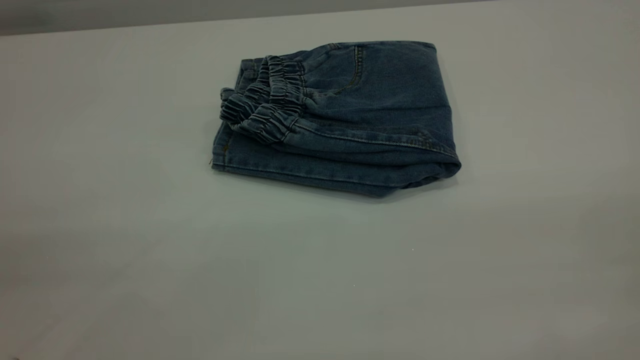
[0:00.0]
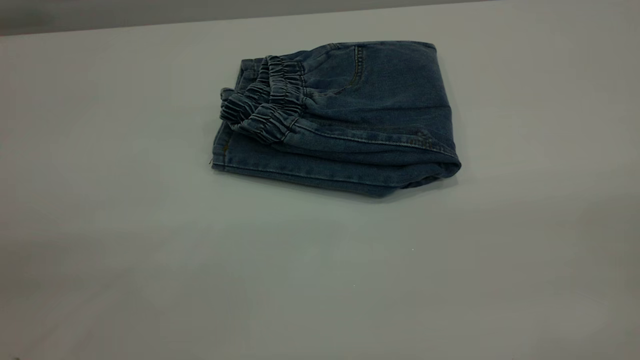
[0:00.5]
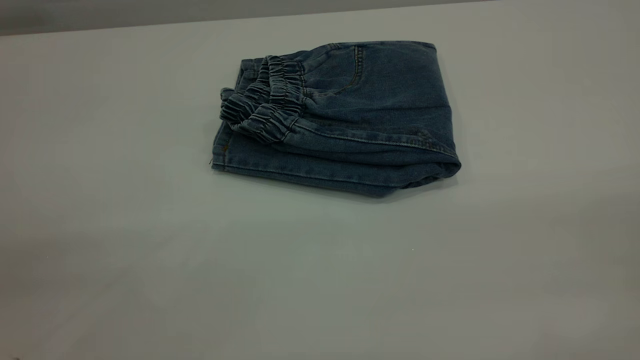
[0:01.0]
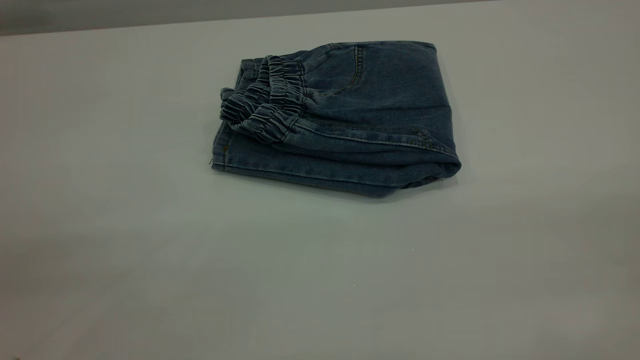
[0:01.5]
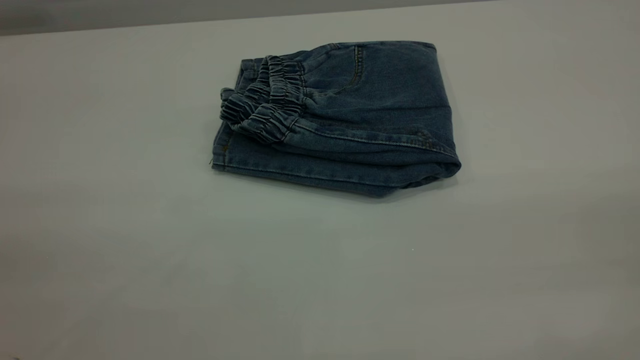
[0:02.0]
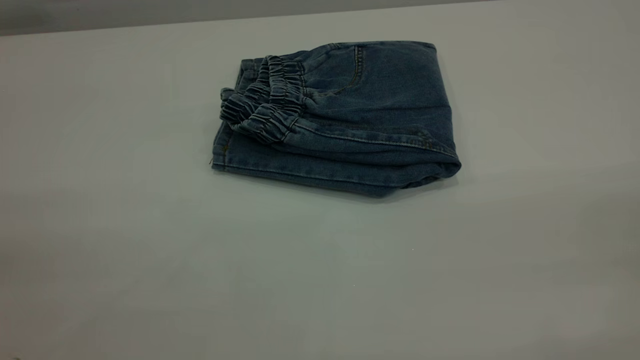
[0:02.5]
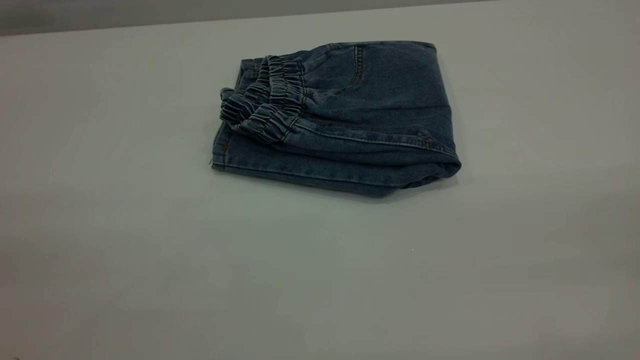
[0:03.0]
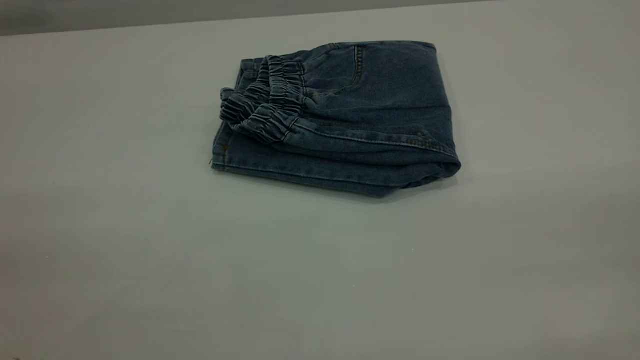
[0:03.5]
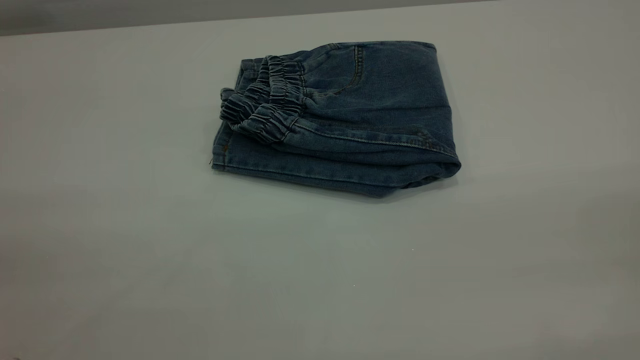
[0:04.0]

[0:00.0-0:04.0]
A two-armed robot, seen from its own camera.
0:02.0 to 0:04.0: Both grippers stay put.

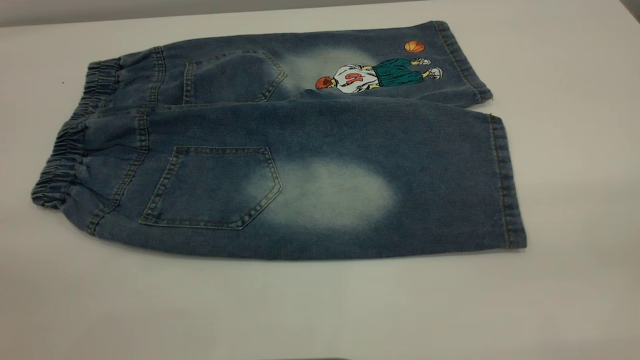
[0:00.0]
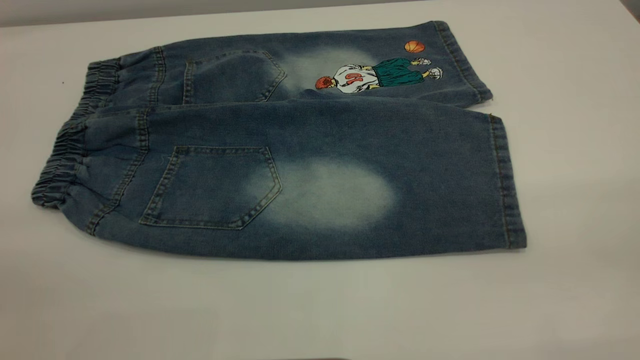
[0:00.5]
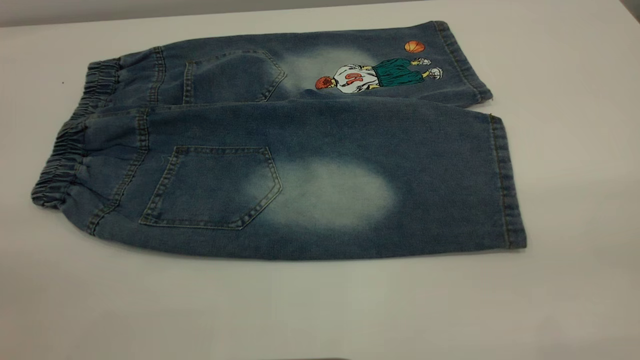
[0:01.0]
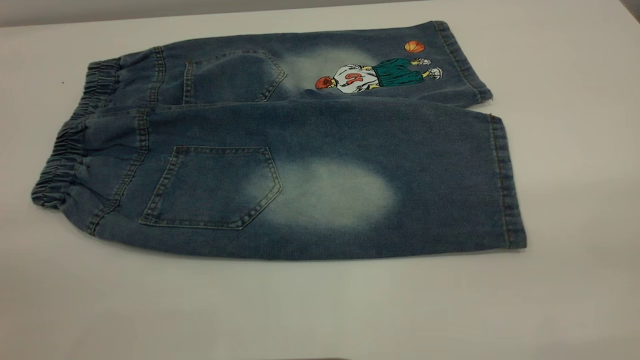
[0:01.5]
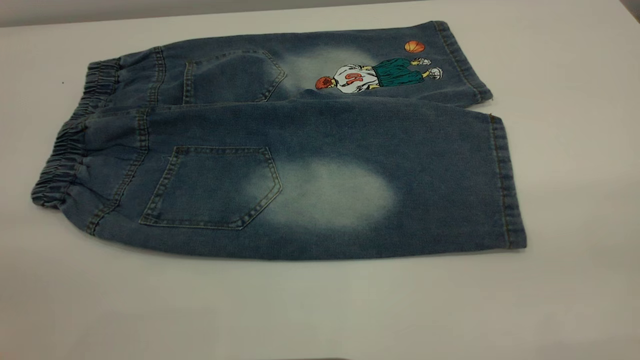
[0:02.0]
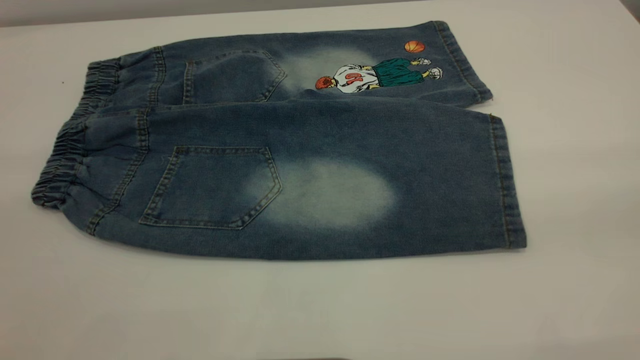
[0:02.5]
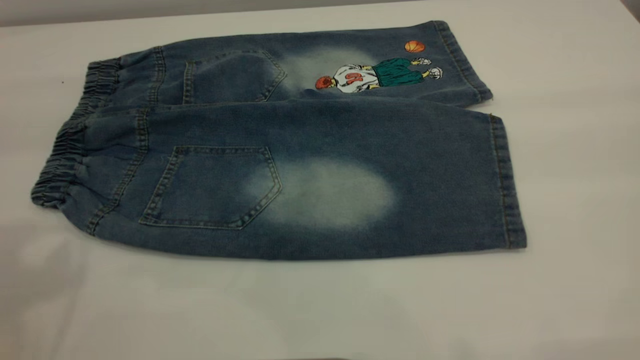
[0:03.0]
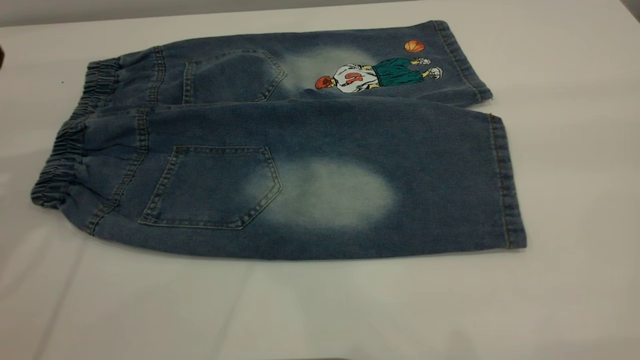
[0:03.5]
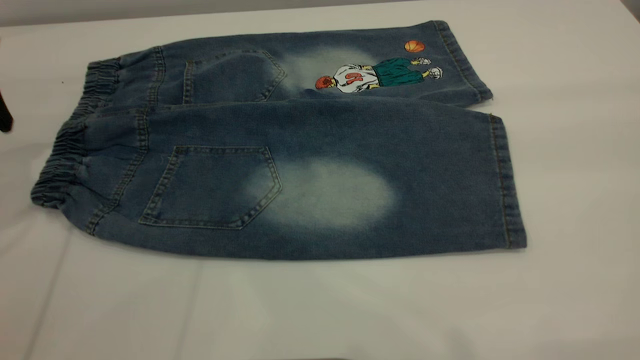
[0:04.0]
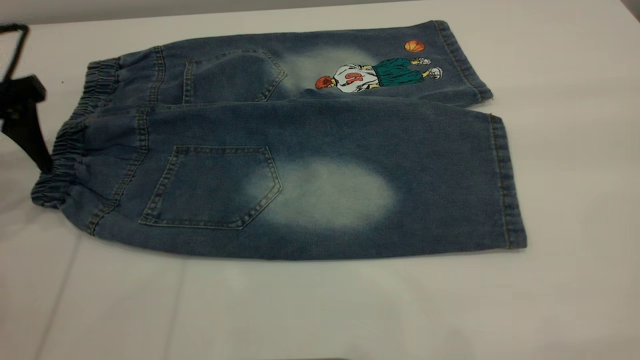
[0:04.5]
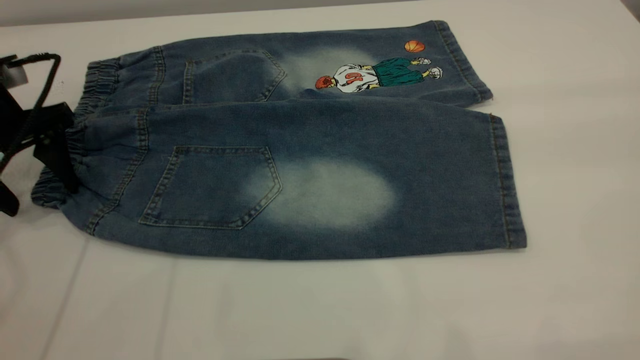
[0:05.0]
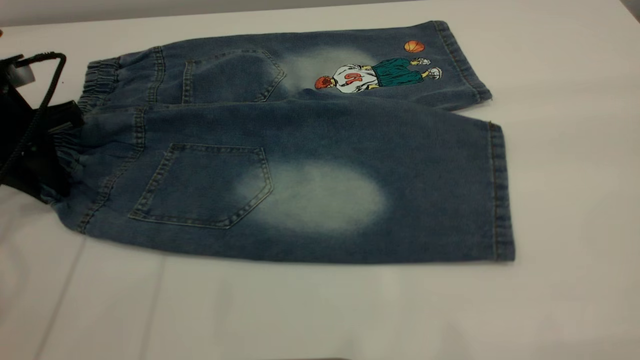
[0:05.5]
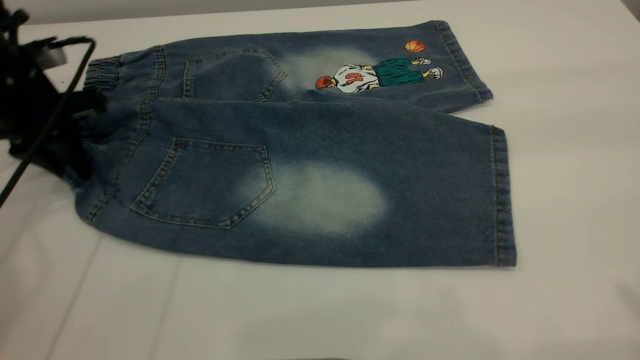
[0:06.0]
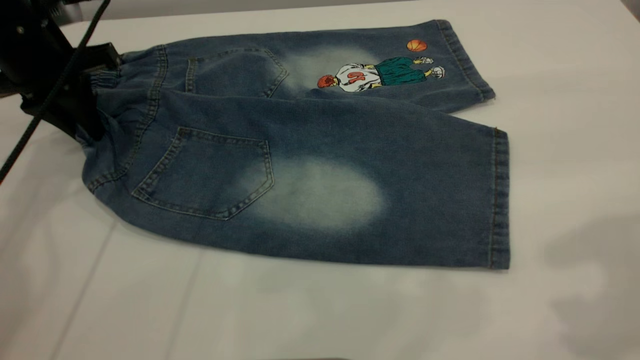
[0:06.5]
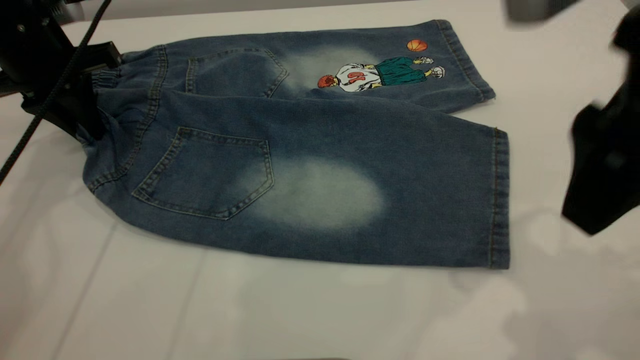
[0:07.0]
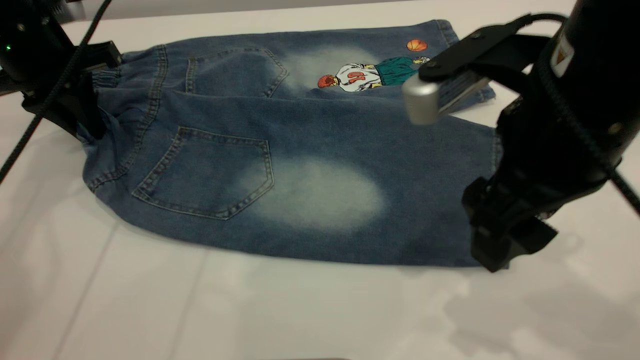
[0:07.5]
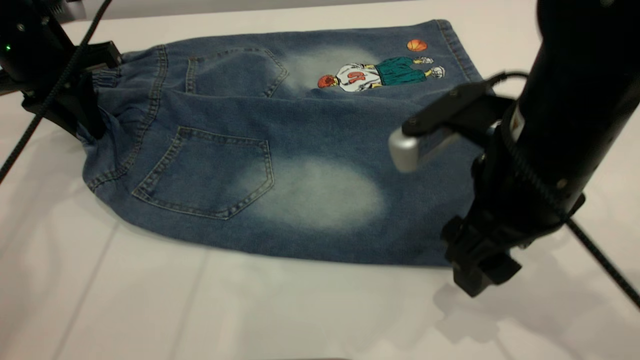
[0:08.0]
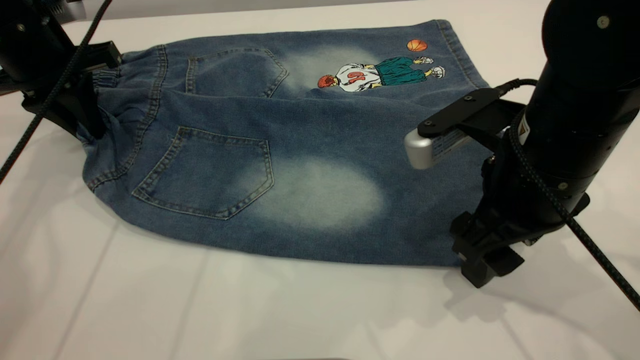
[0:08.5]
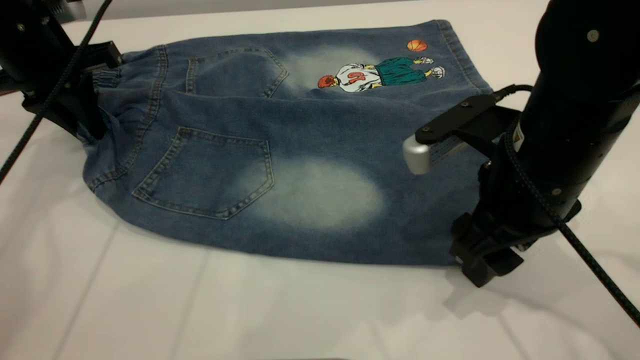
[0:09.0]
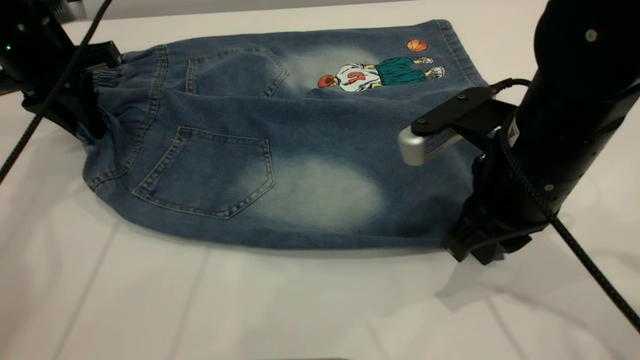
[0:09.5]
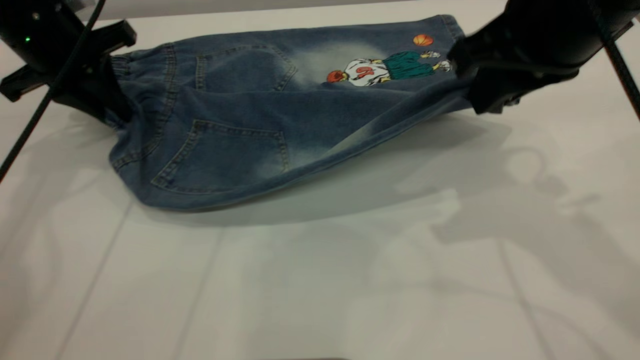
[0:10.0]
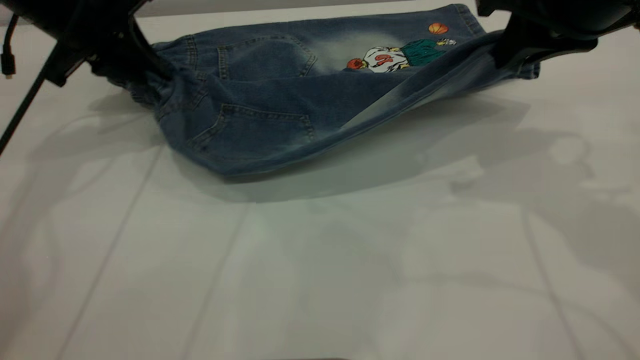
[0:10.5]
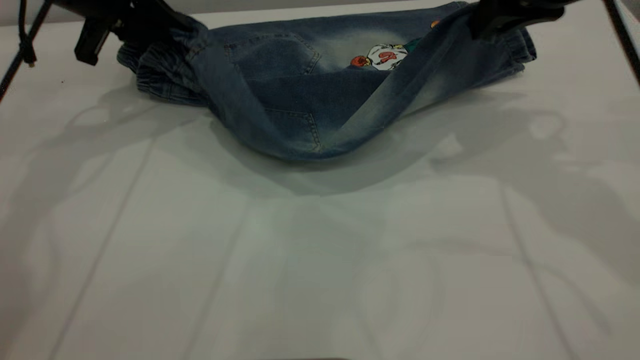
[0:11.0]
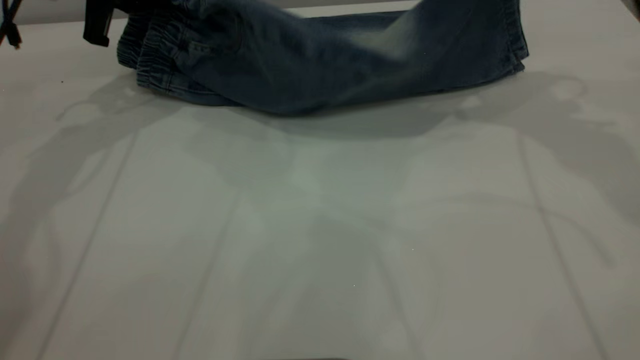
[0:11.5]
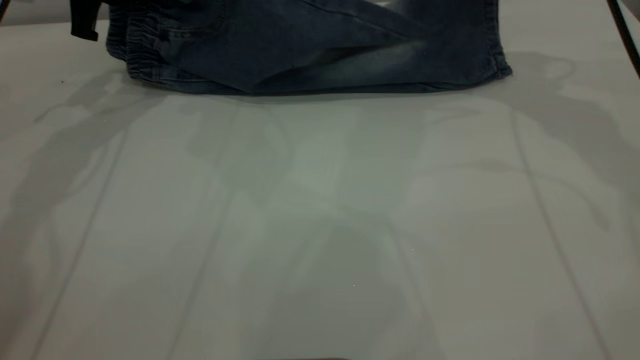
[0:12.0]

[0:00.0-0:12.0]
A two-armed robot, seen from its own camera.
0:00.0 to 0:02.0: The two grippers keep their place.
0:02.0 to 0:04.0: The left gripper travels forward by approximately 35 cm.
0:04.0 to 0:06.0: The right gripper moves forward, roughly 5 cm; the left gripper moves downward, roughly 10 cm, and closes up.
0:06.0 to 0:08.0: The right gripper heads downward and to the left, covering some 30 cm.
0:08.0 to 0:10.0: The right gripper travels upward and forward by some 10 cm, and closes.
0:10.0 to 0:12.0: The right gripper moves forward and to the right, roughly 20 cm. Meanwhile the left gripper shifts by some 5 cm.

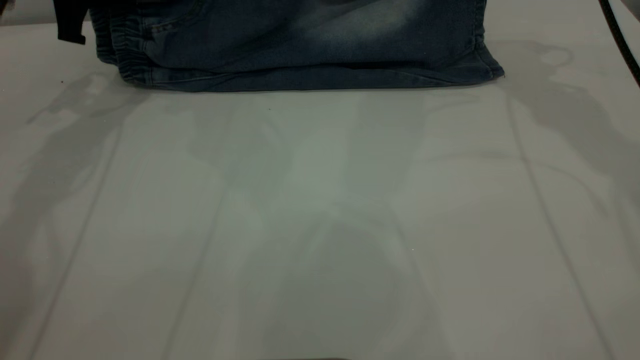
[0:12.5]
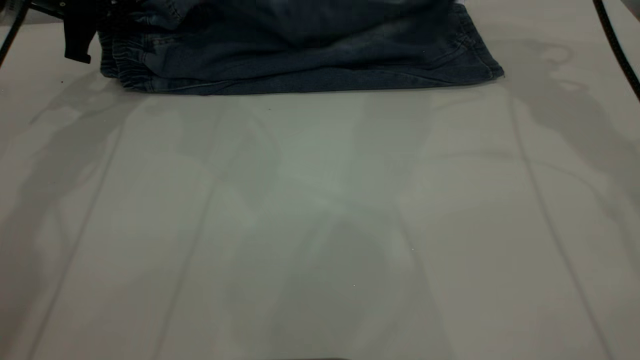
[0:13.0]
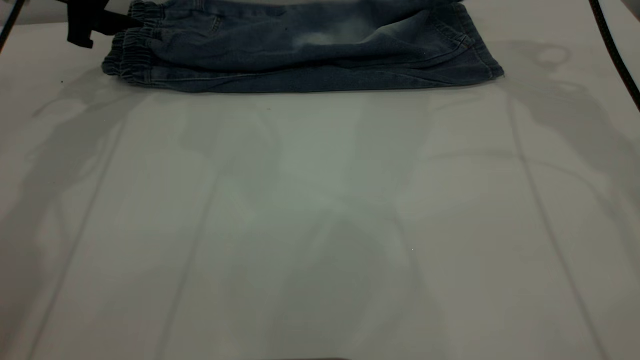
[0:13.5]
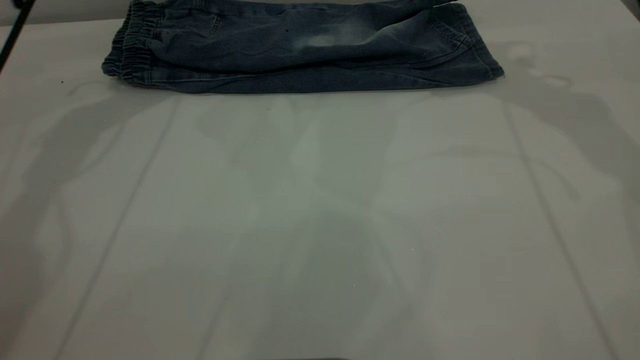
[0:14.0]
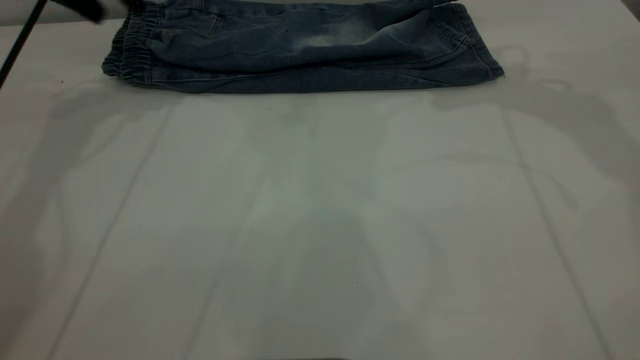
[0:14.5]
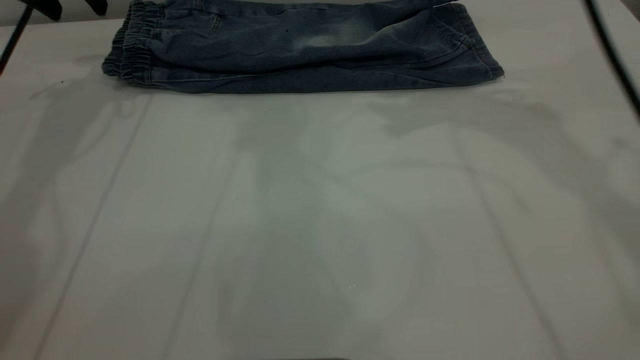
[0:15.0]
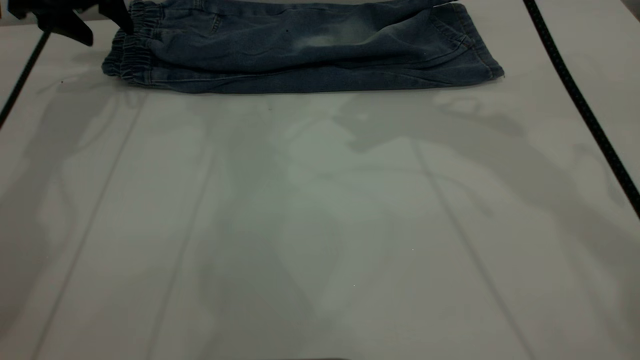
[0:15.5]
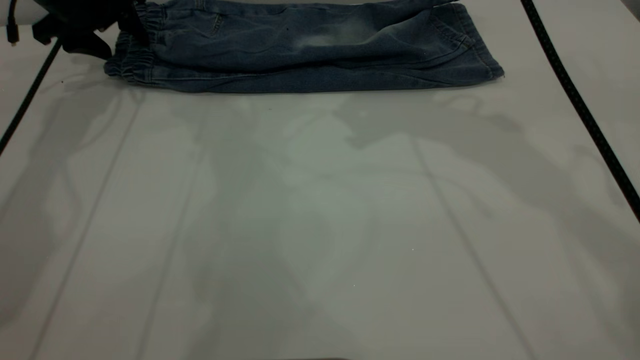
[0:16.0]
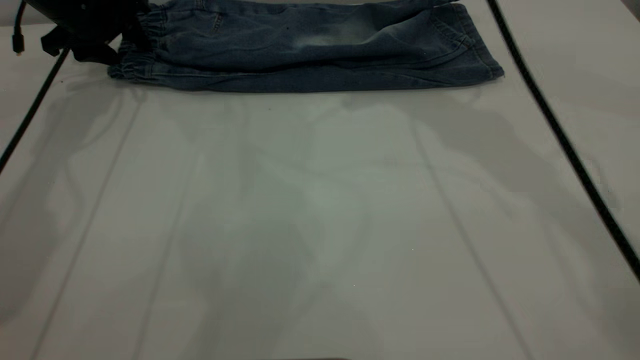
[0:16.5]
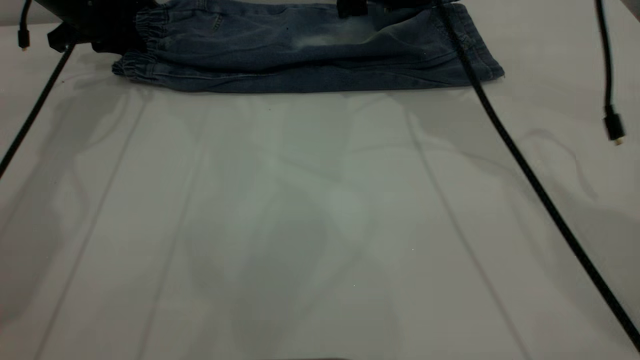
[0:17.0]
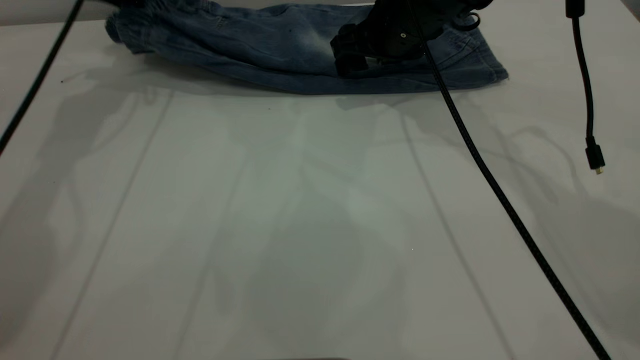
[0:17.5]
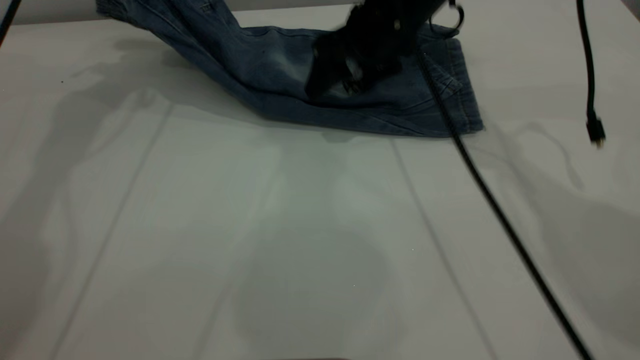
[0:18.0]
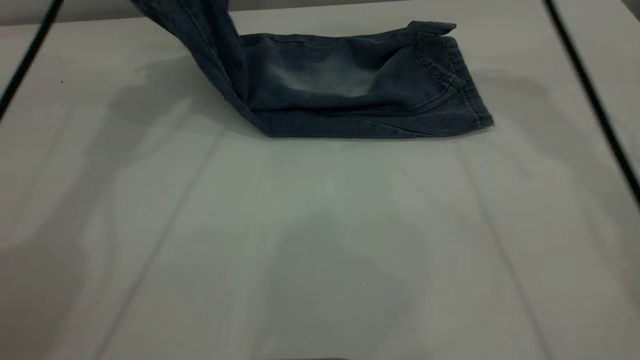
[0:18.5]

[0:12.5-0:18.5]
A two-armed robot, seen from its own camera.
0:12.5 to 0:14.5: Both grippers travel together upward, approximately 5 cm. The right gripper opens. Meanwhile the left gripper opens its fingers.
0:14.5 to 0:16.5: The left gripper heads downward, covering some 10 cm, while the right gripper is displaced to the left by some 10 cm.
0:16.5 to 0:18.5: The left gripper heads upward and to the right, covering about 20 cm, and closes. The right gripper moves some 15 cm downward and comes back.
